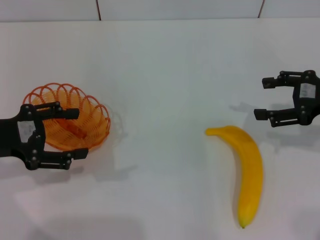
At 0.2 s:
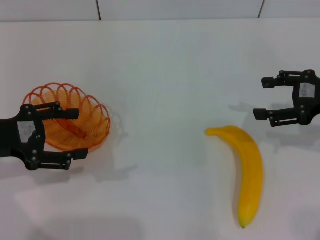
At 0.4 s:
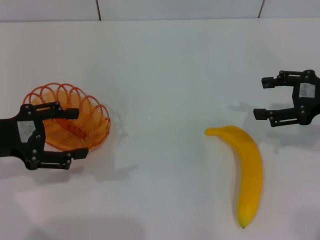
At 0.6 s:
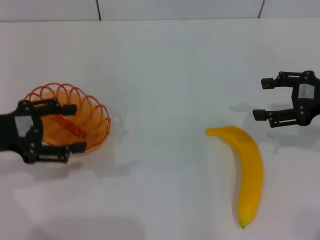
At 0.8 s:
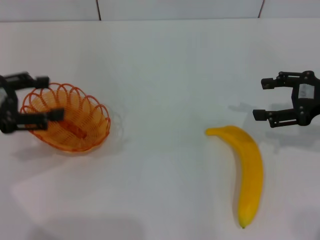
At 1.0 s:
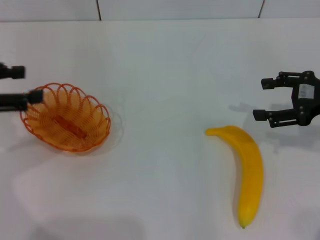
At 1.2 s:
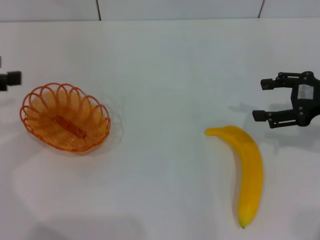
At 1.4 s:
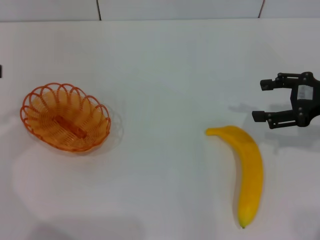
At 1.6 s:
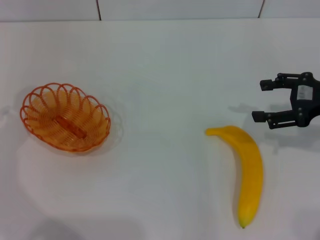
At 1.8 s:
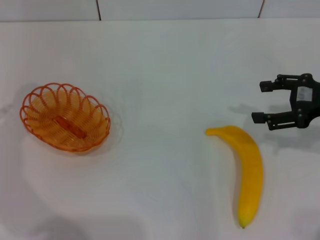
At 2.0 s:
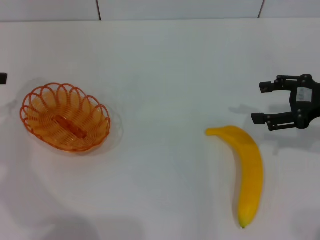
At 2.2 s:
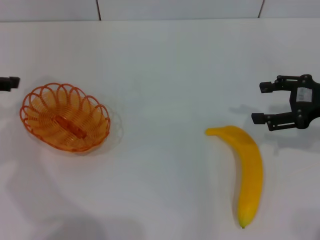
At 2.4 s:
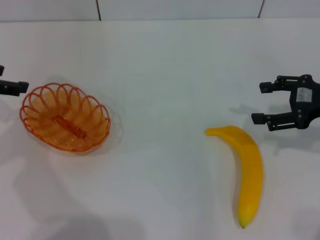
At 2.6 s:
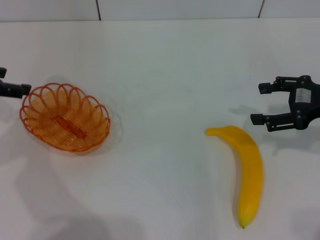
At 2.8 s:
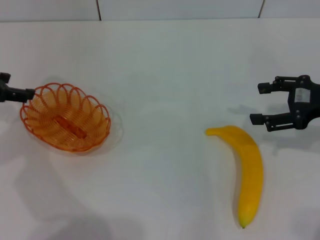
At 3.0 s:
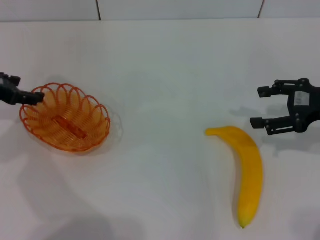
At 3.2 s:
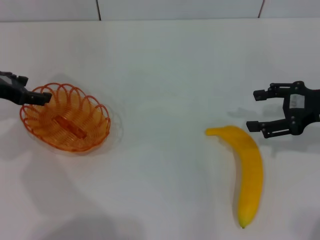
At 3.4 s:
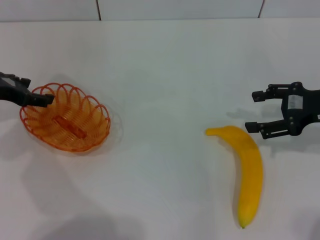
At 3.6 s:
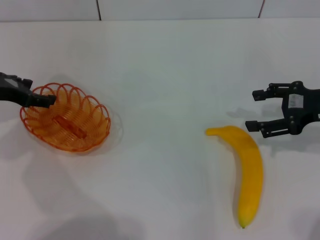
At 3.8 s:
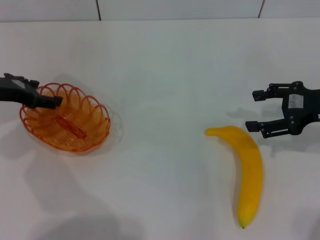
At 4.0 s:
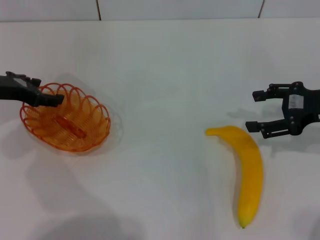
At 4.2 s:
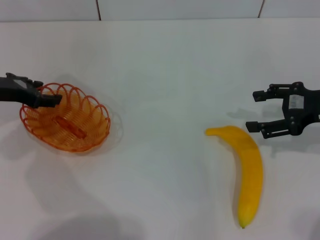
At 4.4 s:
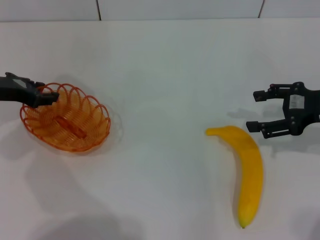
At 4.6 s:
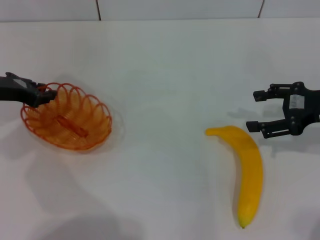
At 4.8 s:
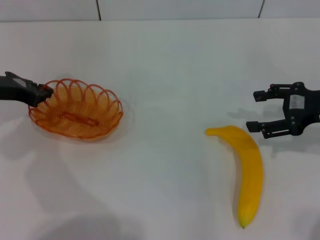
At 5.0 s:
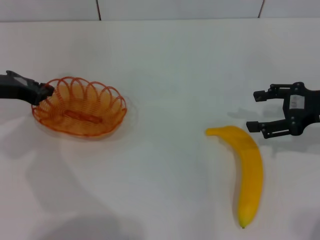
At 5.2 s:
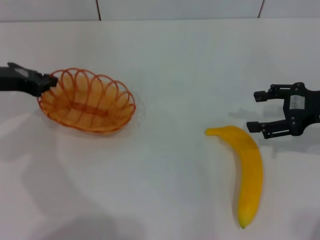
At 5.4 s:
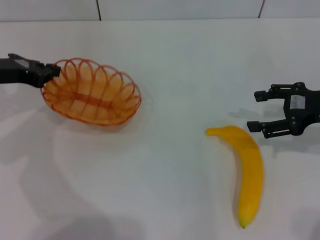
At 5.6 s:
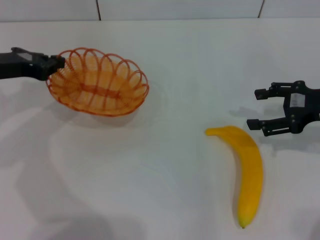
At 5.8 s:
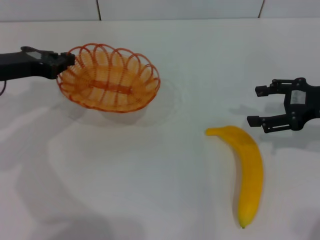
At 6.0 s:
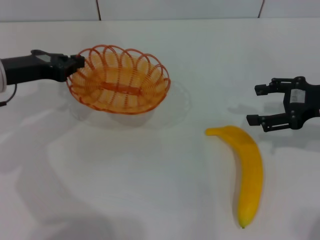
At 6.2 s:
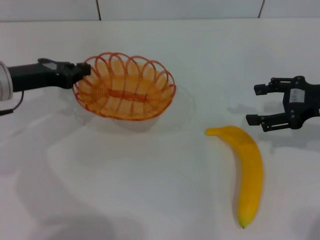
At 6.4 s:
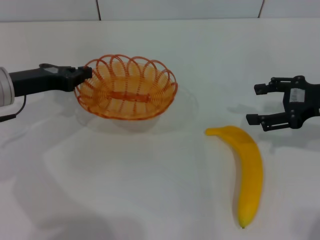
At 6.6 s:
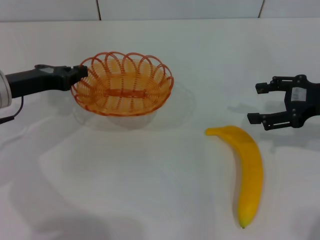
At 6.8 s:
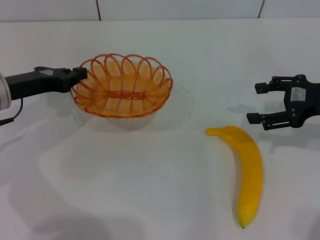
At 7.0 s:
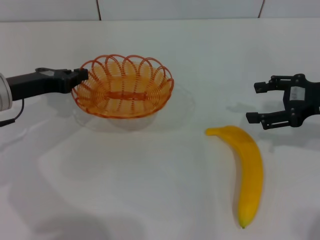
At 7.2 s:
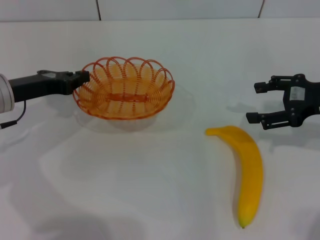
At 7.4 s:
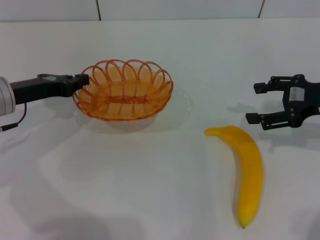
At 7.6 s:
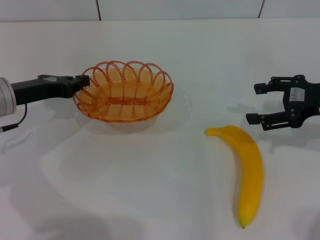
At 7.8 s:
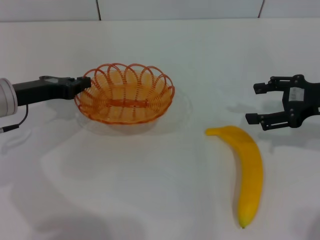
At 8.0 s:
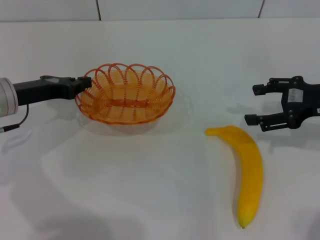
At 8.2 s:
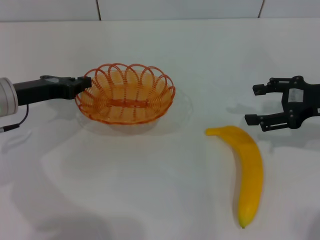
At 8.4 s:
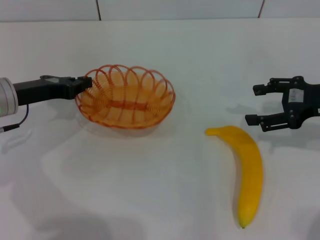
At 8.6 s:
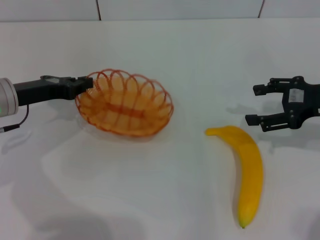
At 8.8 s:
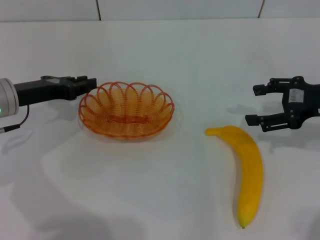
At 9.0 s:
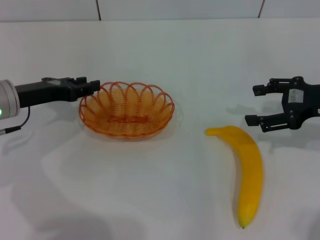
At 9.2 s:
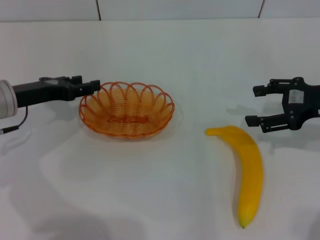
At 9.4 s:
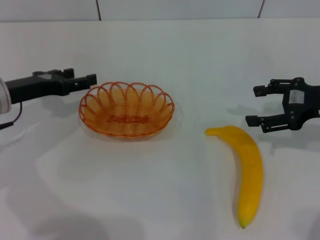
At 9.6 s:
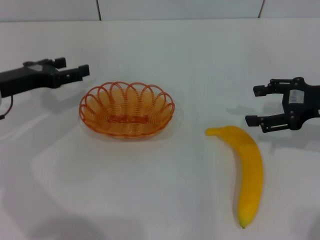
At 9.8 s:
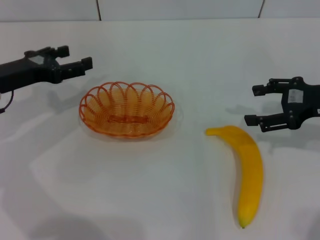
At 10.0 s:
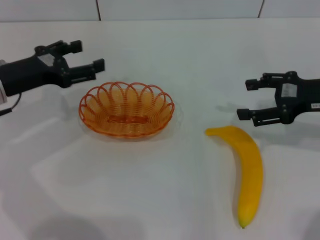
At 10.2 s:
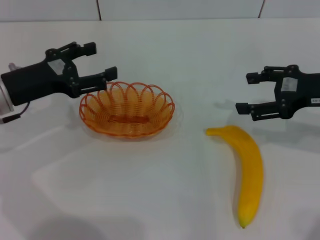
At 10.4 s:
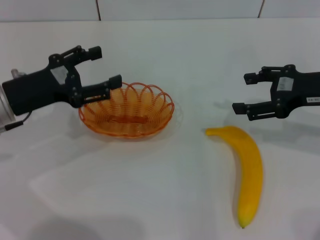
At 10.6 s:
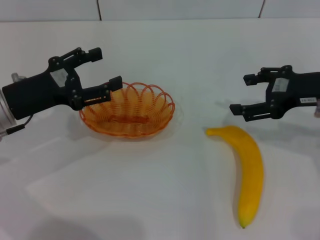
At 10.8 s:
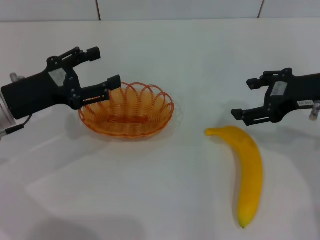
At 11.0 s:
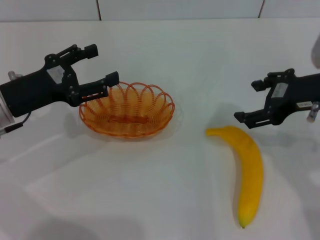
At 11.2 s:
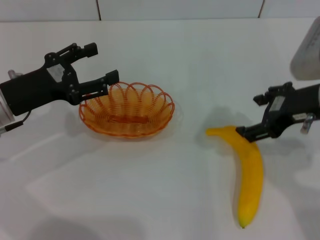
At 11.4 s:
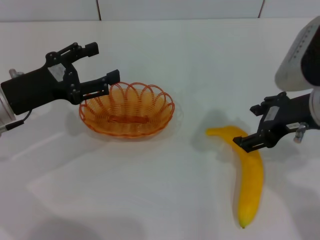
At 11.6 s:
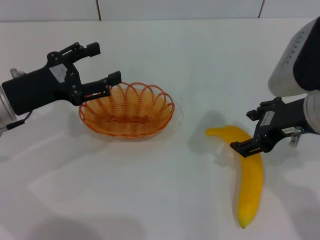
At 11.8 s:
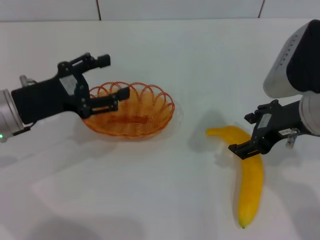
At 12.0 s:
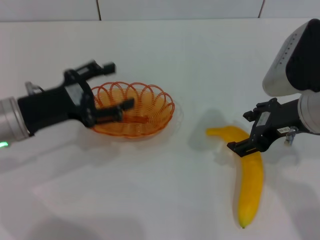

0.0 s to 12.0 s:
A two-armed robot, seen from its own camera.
Step, 0.0 to 6.4 s: Pick up the basket with the left gripper.
Step, 6.6 to 10.8 s: Place the basket in the center of view with the left gripper.
0.0 to 1.6 s: The left gripper travels to the left and upward by about 10 cm.
1.6 to 3.0 s: The left gripper goes about 10 cm downward, to the right and forward.
3.0 to 4.4 s: The grippers move only a little.
4.4 to 6.0 s: The left gripper closes its fingers.
6.0 to 7.6 s: The grippers move only a little.
7.6 to 9.0 s: Neither gripper changes place.
9.0 to 10.4 s: The left gripper opens its fingers.
10.4 to 12.0 s: The right gripper goes about 10 cm to the left.

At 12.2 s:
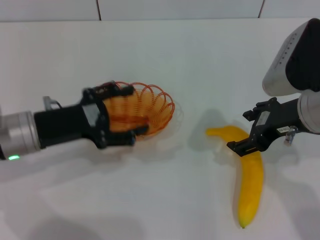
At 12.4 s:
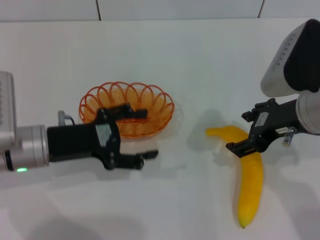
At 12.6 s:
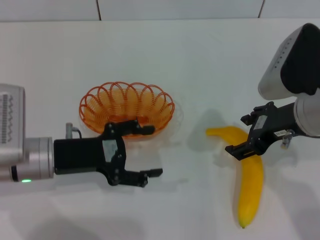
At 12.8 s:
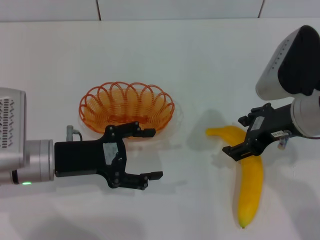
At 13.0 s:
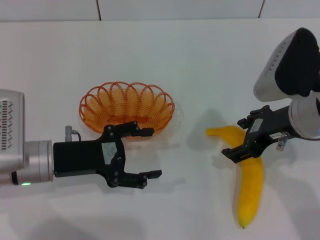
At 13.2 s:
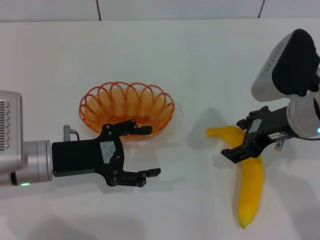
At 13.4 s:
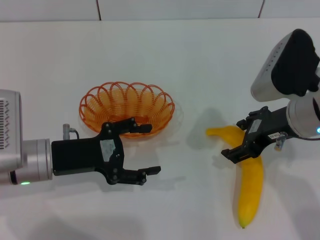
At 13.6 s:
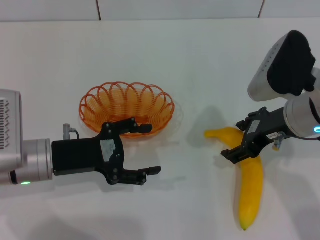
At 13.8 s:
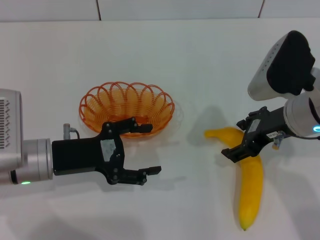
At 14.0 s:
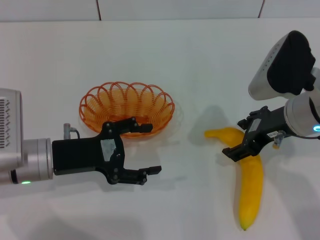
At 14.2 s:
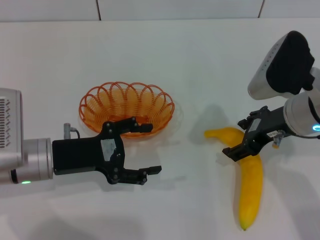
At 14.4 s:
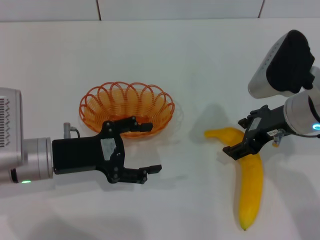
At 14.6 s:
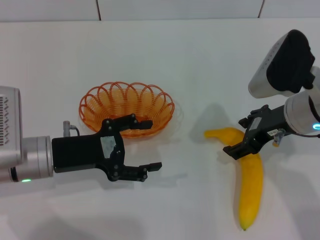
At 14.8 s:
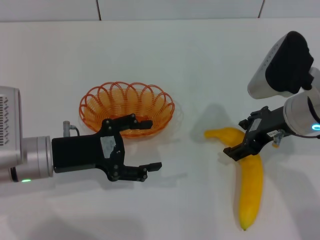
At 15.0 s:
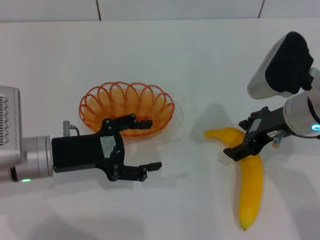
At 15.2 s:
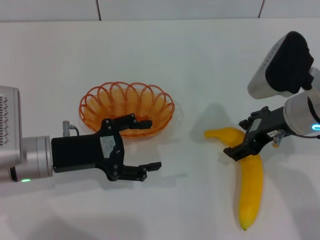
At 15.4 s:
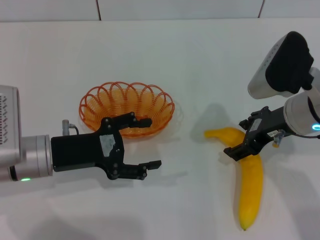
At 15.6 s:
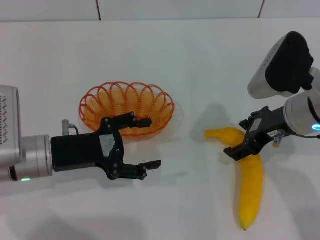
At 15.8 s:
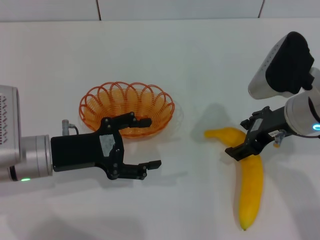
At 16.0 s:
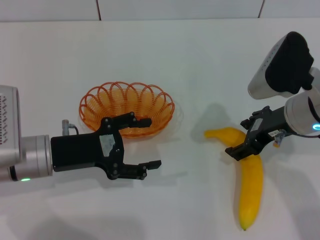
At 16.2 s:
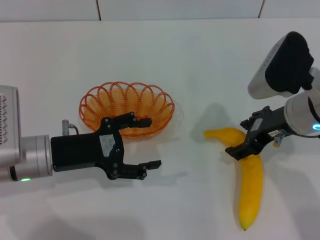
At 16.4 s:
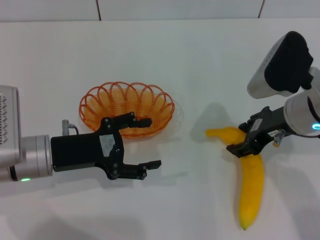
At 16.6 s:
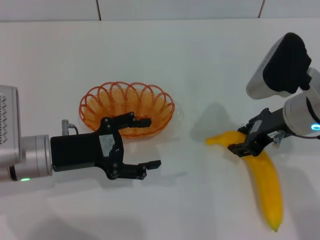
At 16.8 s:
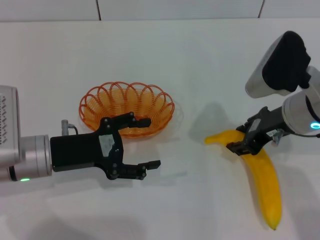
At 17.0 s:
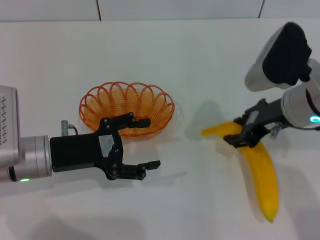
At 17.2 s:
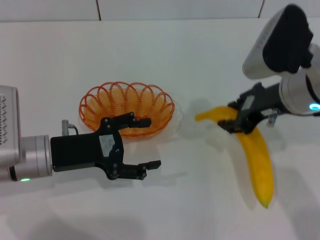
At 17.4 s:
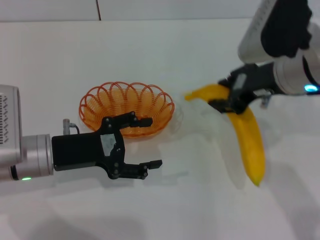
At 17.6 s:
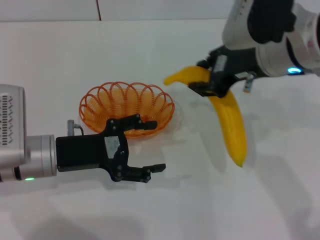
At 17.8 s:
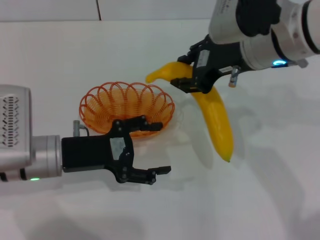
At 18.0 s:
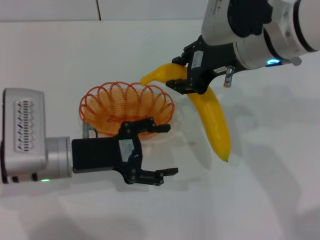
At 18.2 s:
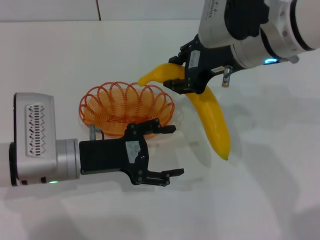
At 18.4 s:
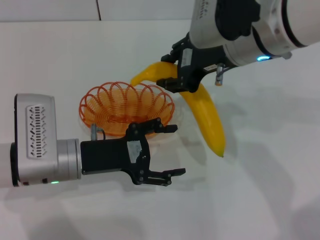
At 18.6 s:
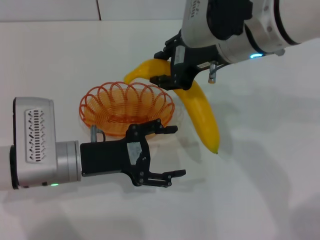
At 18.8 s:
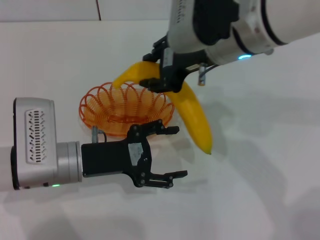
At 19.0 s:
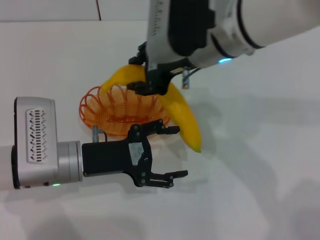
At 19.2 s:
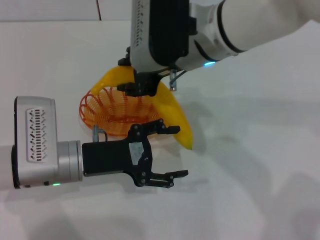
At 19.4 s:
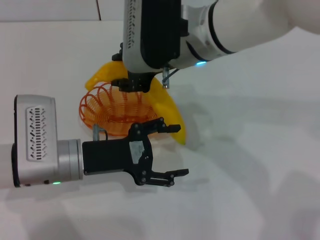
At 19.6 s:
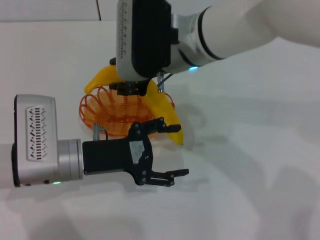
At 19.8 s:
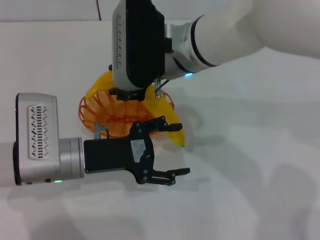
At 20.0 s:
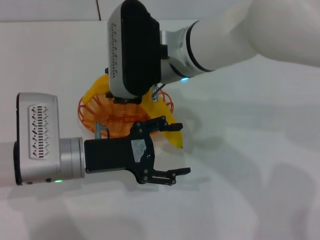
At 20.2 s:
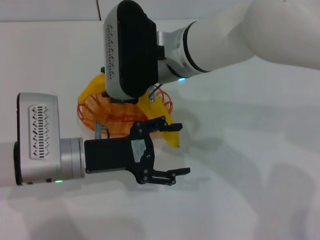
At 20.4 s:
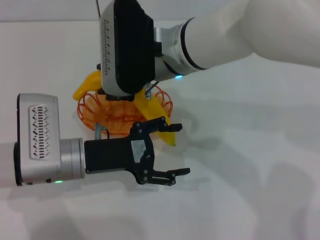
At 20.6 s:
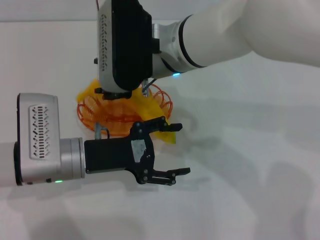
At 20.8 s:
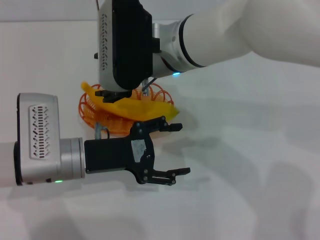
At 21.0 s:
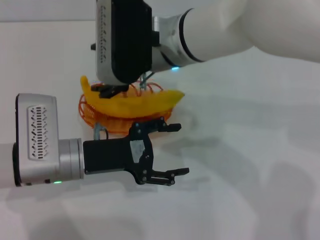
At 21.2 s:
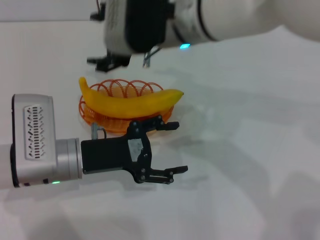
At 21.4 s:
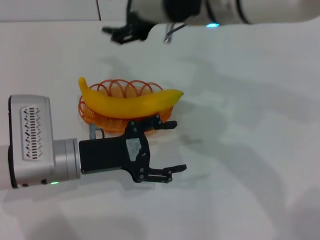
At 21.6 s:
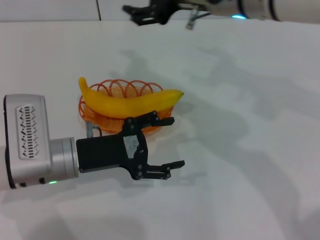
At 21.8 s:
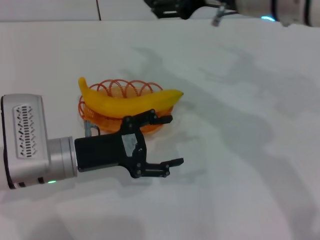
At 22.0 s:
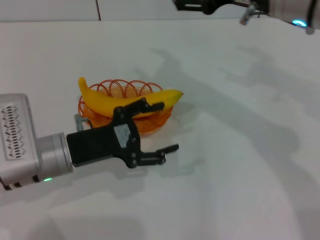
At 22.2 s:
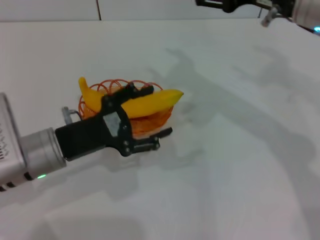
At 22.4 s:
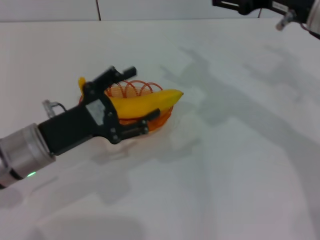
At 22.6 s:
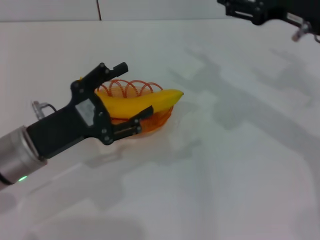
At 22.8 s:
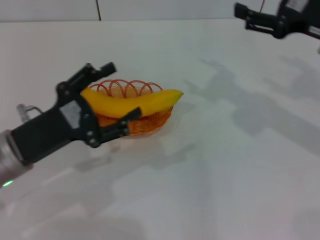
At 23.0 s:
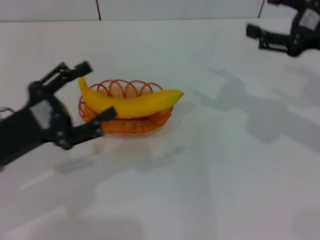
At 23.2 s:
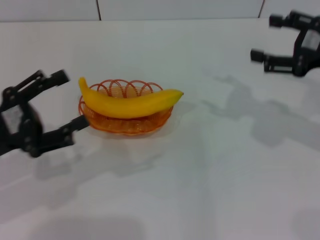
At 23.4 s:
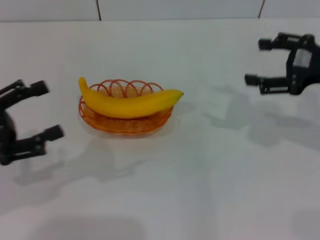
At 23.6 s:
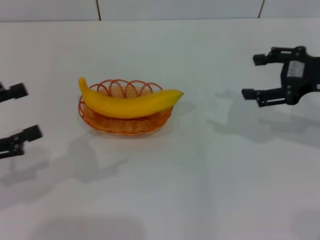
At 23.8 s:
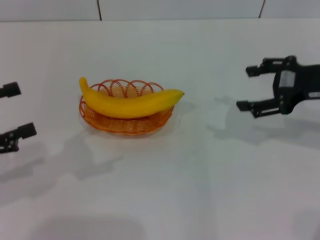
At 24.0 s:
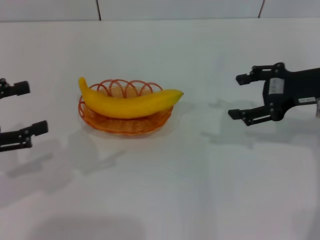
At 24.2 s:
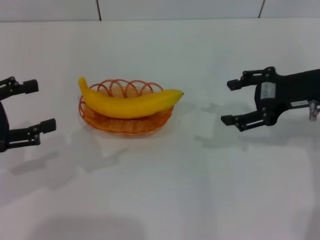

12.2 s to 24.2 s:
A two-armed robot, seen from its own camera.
Step, 12.2 to 17.6 s: Pick up the banana with the right gripper.
Step, 17.8 to 21.2 s: Place the banana into the basket with the right gripper.
12.2 to 13.8 s: There are only small adjustments of the grippers.
13.8 to 15.2 s: Neither gripper changes place.
15.2 to 16.6 s: The right gripper closes its fingers.
16.6 to 18.2 s: The right gripper shifts about 10 cm upward and to the left, and closes up.
18.2 to 19.8 s: The right gripper is displaced to the left by about 10 cm.
19.8 to 21.2 s: The right gripper opens.
21.2 to 22.6 s: The right gripper goes approximately 20 cm to the right.
22.6 to 24.2 s: The left gripper shifts about 15 cm to the left and upward.
